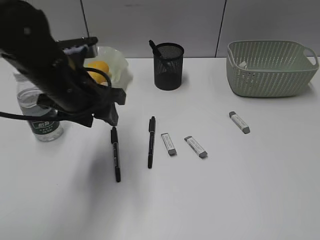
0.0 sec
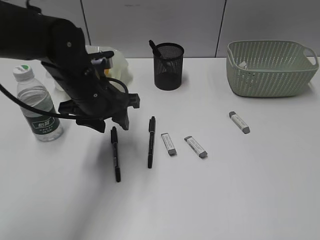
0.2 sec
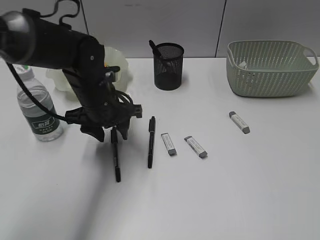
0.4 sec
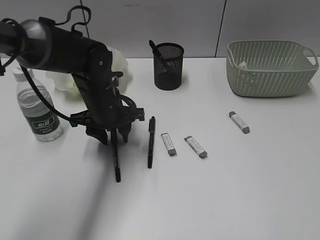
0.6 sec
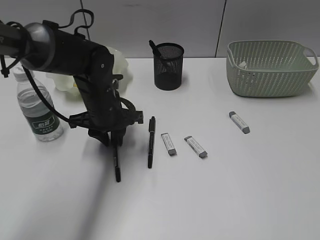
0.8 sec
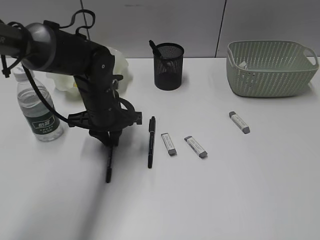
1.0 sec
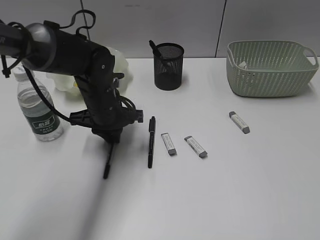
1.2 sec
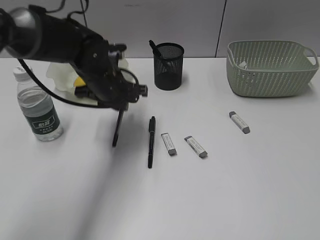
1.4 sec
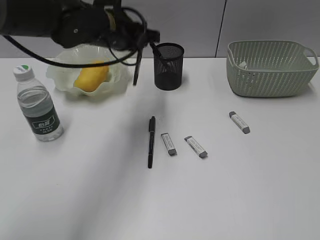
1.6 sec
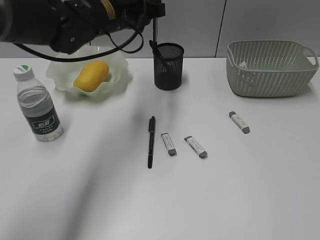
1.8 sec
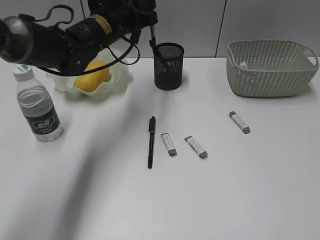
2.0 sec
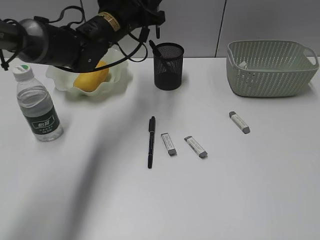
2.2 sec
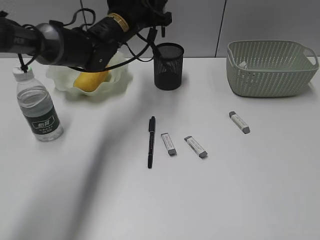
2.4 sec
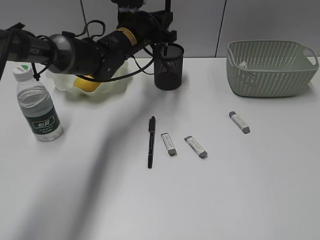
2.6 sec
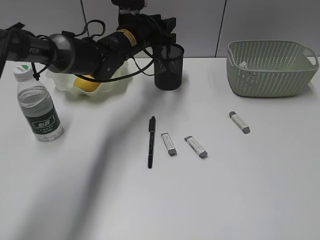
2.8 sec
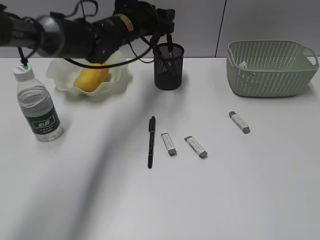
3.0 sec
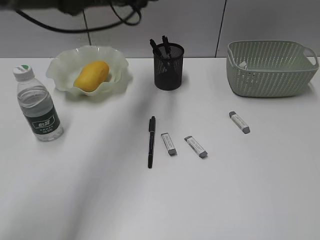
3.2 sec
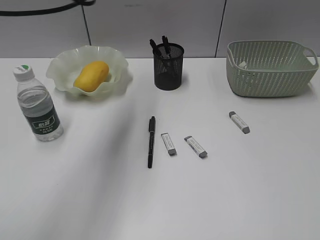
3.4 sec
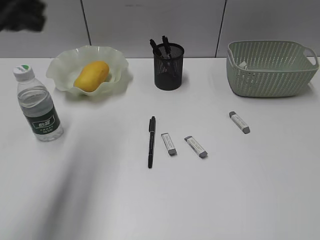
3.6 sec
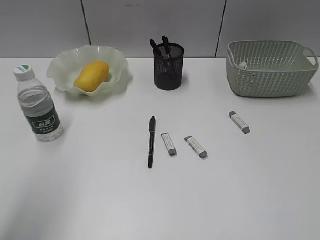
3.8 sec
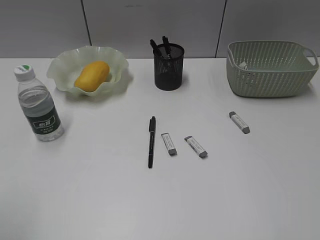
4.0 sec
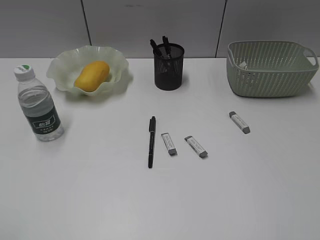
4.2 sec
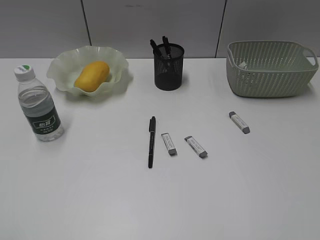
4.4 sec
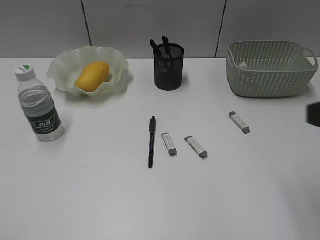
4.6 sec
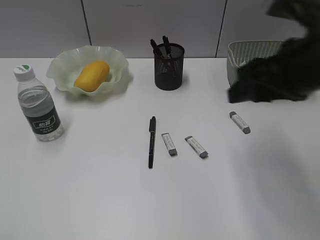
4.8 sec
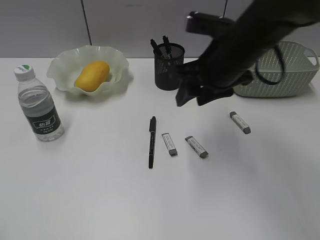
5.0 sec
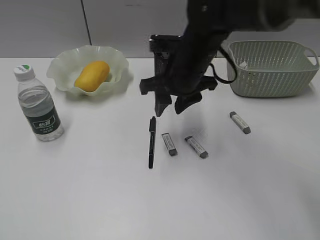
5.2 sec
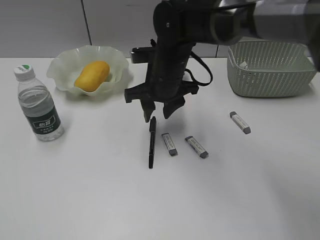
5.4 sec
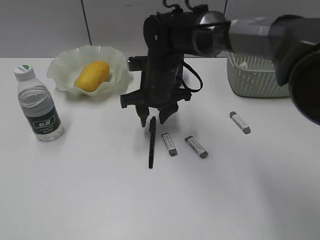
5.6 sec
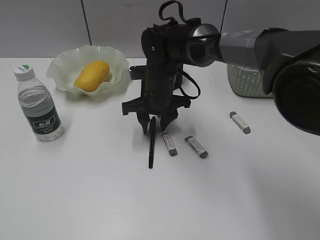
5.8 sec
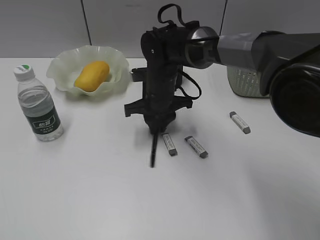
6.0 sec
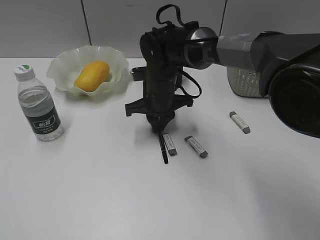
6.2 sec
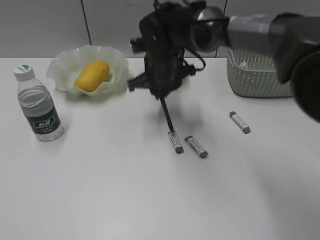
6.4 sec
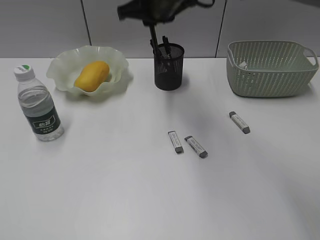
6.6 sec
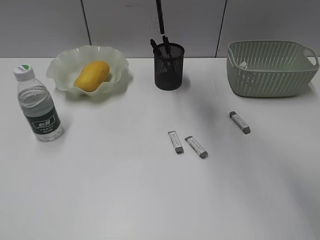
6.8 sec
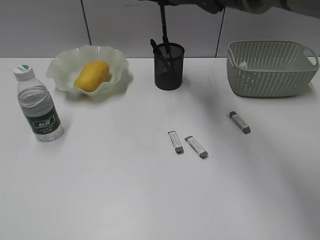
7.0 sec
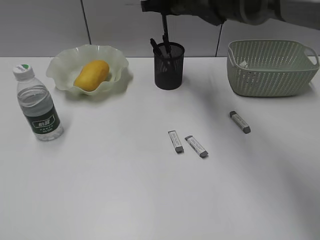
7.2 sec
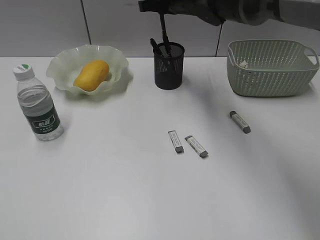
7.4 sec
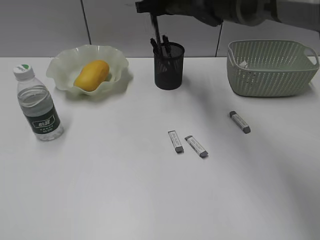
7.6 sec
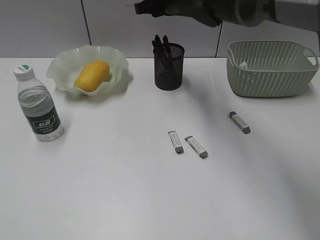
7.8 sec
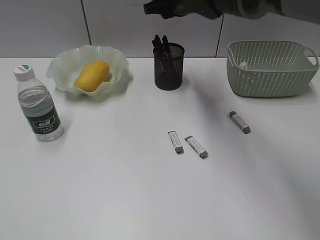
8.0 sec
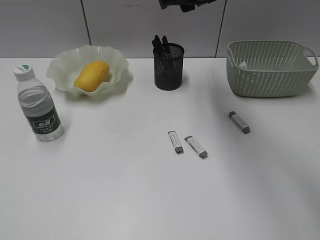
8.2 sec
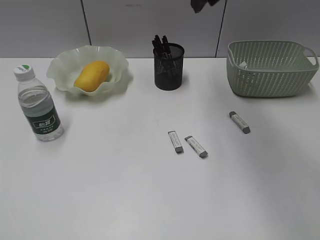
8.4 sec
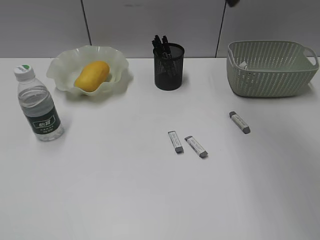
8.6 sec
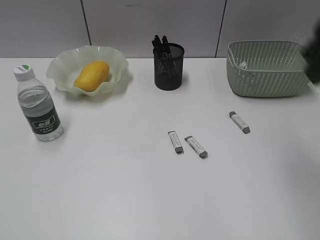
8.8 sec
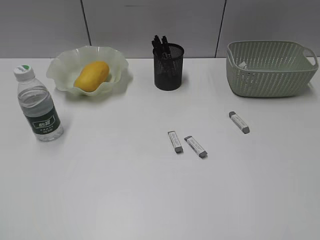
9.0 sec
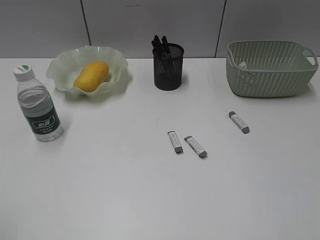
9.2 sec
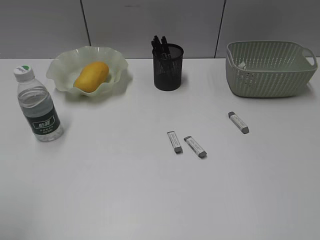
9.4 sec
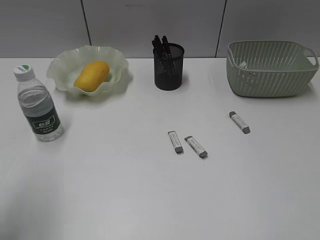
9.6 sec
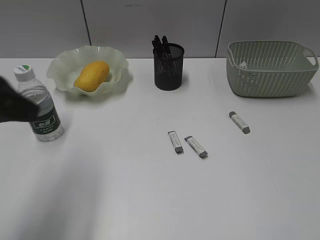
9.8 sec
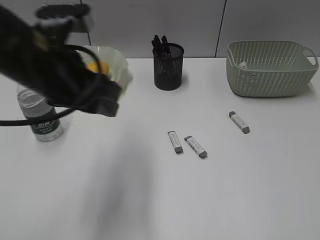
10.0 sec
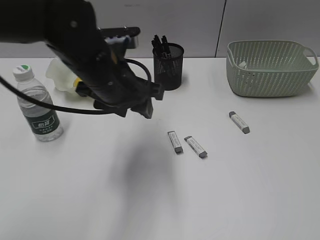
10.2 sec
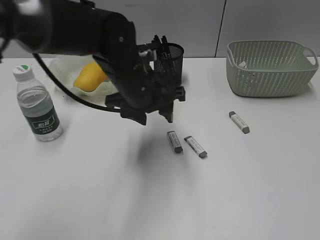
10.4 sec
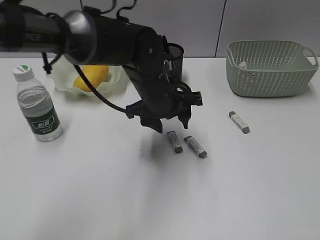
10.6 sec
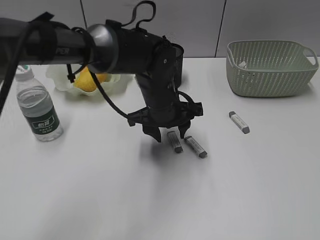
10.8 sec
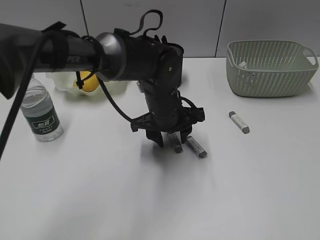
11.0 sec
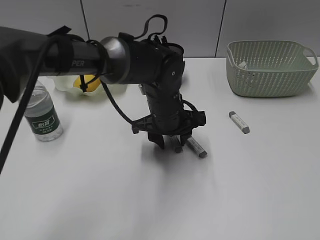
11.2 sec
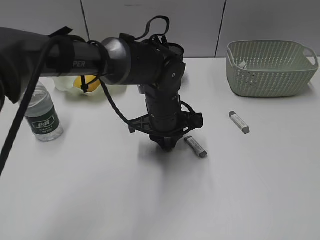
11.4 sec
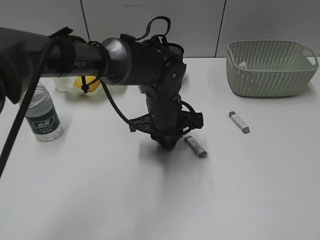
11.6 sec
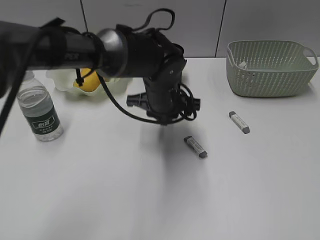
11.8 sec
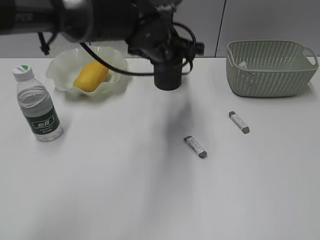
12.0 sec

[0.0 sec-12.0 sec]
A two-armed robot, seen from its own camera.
Step, 1.4 sec to 3.0 sec: Place the black pen in pen holder with left gripper.
Step, 3.2 sec to 6.2 sec: Grasp the black pen with right gripper.
Step, 8.0 sec to 11.6 sec: Grasp the eraser with left gripper.
0.0 sec to 1.6 sec: The left gripper shifts about 10 cm forward and to the right, reaches some 10 cm downward, then returns, and closes.
1.6 sec to 3.0 sec: The left gripper is displaced forward by approximately 10 cm, and opens up.
3.0 sec to 4.4 sec: The left gripper travels backward and to the left by about 50 cm.
4.4 sec to 6.0 sec: The right gripper moves forward, to the left and downward, about 50 cm.
6.0 sec to 7.6 sec: The right gripper shifts some 15 cm upward and forward.
7.6 sec to 9.0 sec: The right gripper moves backward and to the right, roughly 40 cm.
9.0 sec to 10.4 sec: The right gripper is displaced backward and to the right by some 10 cm. Meanwhile the left gripper travels forward and to the right by approximately 40 cm.
10.4 sec to 12.0 sec: The left gripper is displaced forward by about 5 cm, reaches about 5 cm downward, then returns, and closes up.

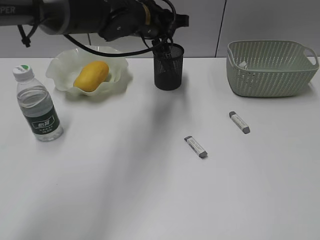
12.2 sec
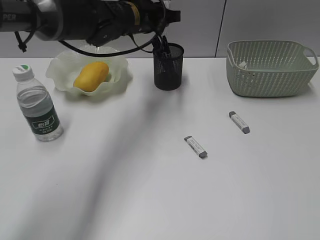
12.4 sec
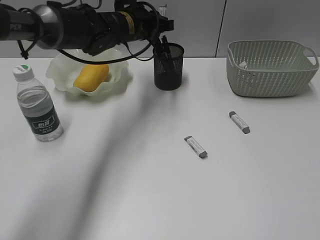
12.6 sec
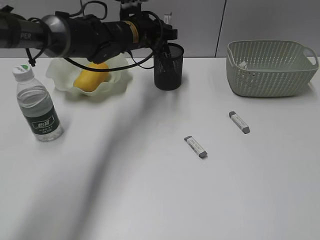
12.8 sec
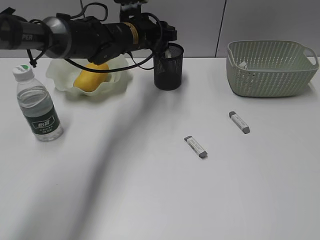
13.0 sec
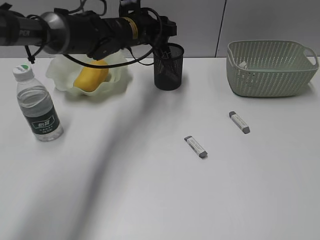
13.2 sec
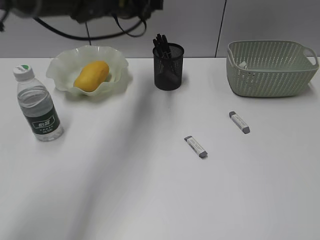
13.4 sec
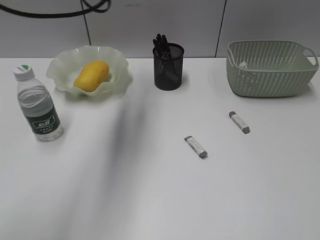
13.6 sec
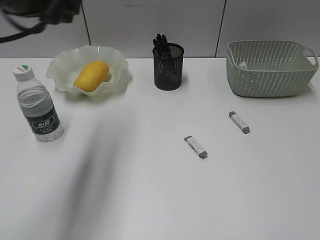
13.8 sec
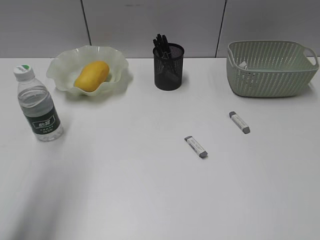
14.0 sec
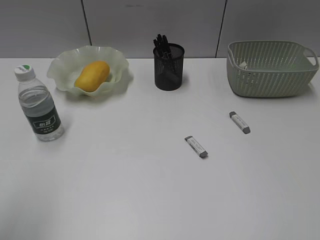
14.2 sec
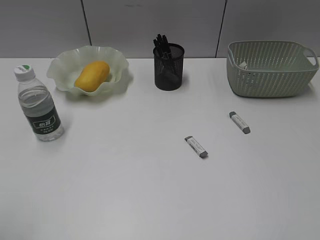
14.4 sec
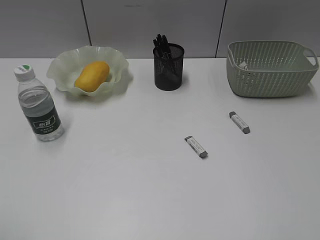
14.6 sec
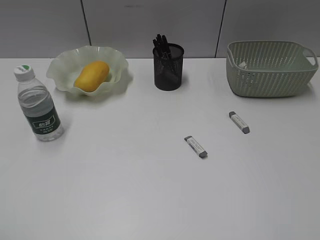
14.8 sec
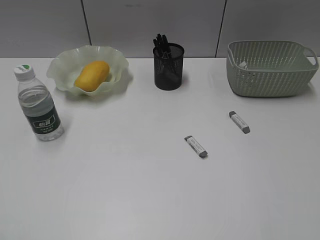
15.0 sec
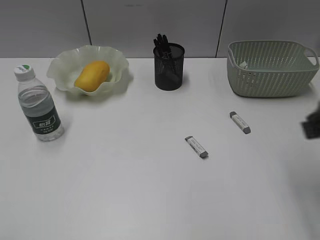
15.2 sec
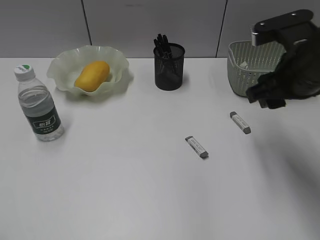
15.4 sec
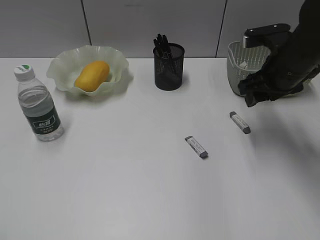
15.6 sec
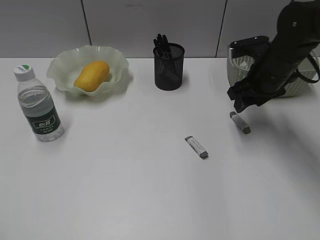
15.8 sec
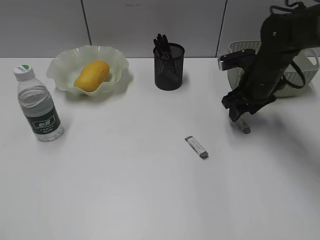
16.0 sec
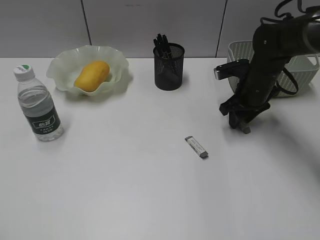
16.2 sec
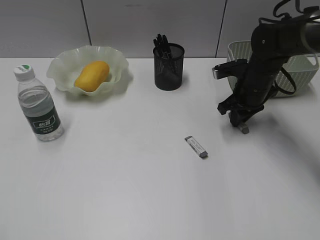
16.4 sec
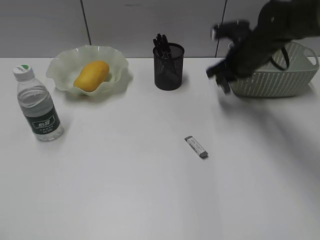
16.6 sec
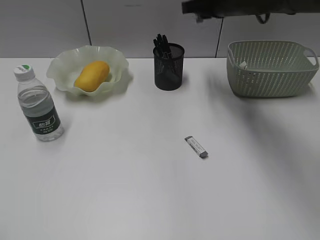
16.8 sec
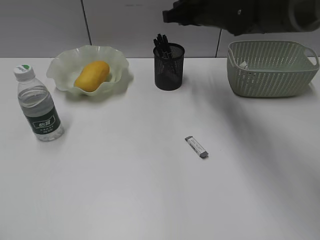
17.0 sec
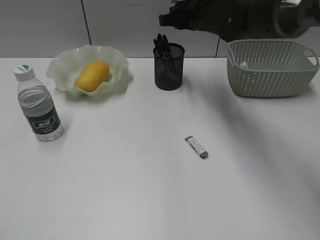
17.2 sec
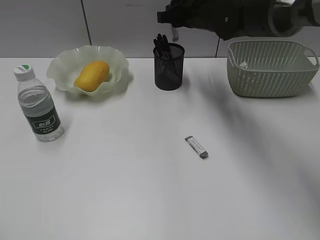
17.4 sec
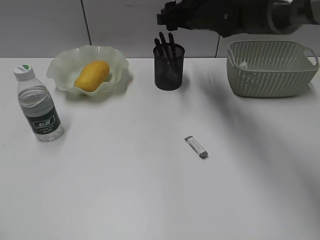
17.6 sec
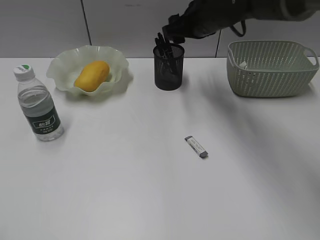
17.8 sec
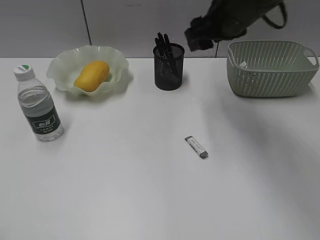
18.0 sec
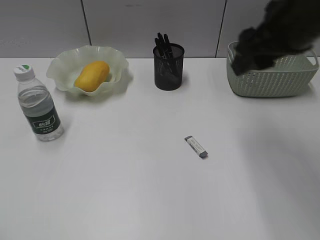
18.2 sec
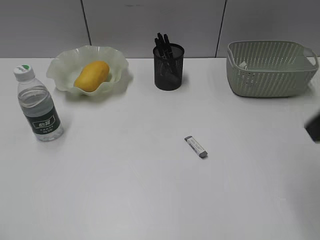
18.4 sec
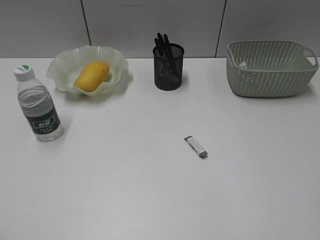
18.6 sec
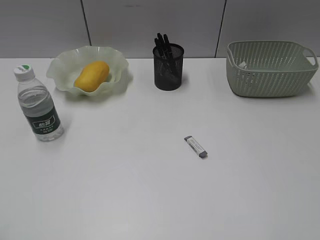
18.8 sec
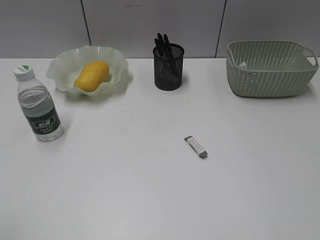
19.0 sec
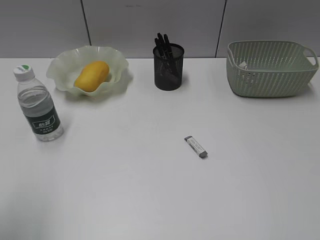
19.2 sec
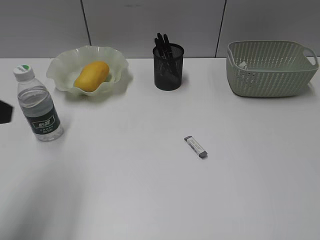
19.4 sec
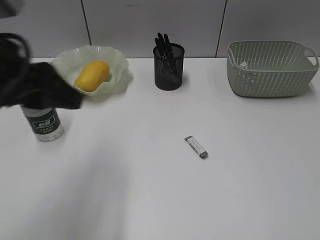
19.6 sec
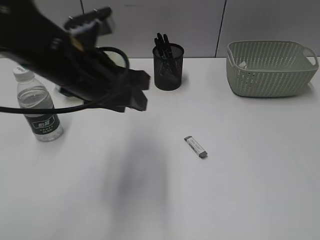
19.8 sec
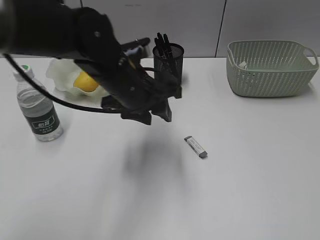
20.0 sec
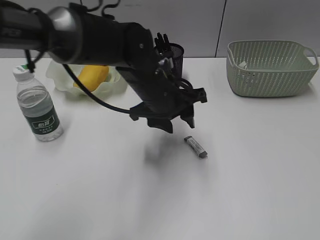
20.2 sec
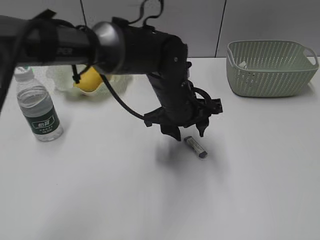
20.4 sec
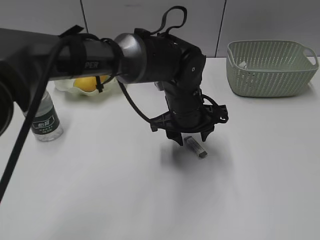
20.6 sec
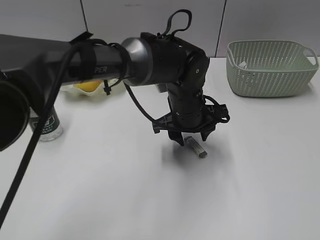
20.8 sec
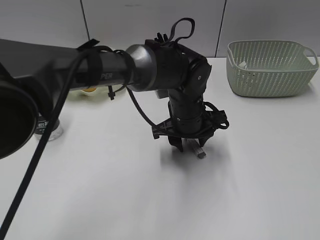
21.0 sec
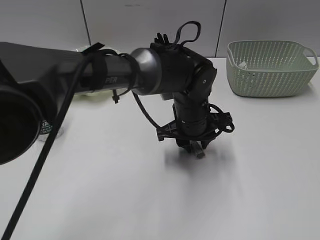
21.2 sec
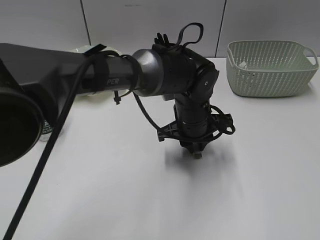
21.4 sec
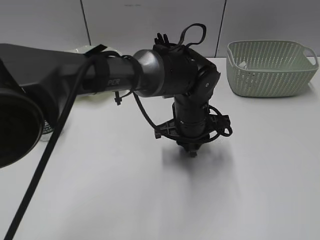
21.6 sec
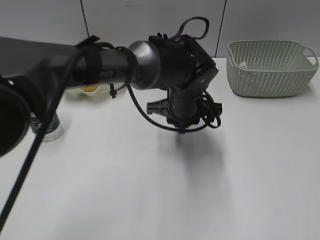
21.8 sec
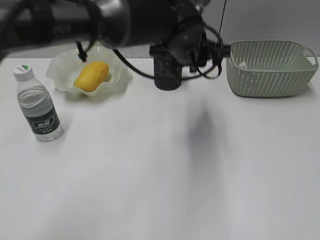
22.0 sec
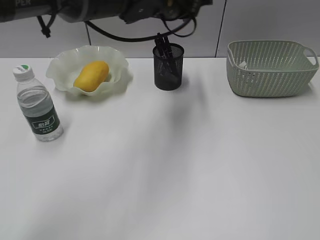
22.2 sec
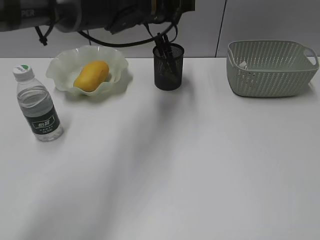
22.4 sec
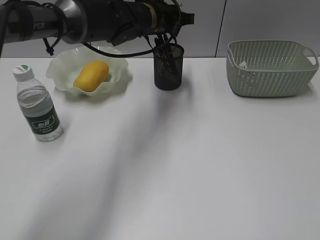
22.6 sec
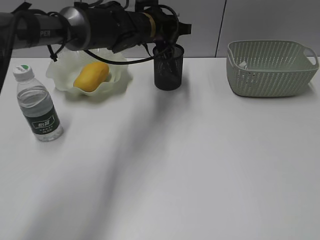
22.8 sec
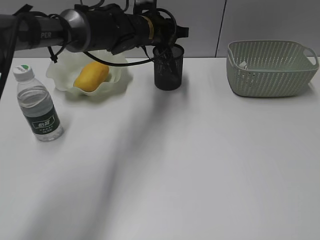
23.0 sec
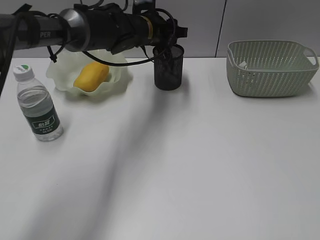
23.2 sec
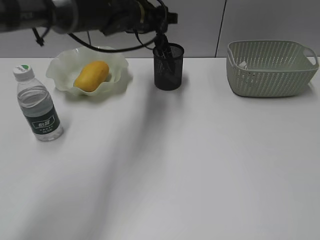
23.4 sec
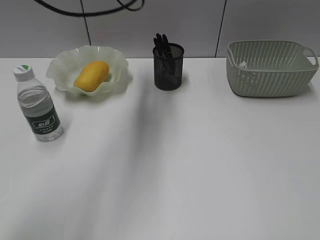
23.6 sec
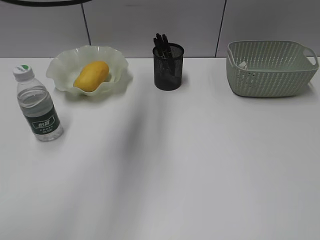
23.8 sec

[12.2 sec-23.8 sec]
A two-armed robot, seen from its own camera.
Step, 12.2 sec to 13.0 sec: Place the eraser in pen holder with left gripper.
Step, 13.2 sec to 16.4 sec: Grasp the eraser with right gripper.
Step, 17.8 sec to 21.4 sec: Grasp the eraser with left gripper.
Step, 21.6 sec to 23.4 sec: Place the eraser in pen holder with left gripper.
12.2 sec to 13.6 sec: The left gripper goes approximately 15 cm to the left and upward, and opens up.
13.6 sec to 15.0 sec: The left gripper is displaced backward and to the left by some 50 cm, while the right gripper goes approximately 5 cm forward.
15.0 sec to 16.6 sec: The right gripper goes approximately 40 cm forward and downward.
16.6 sec to 18.0 sec: The right gripper goes about 10 cm upward and to the left, and opens up.
18.0 sec to 19.4 sec: The left gripper heads forward, covering roughly 15 cm, while the right gripper heads backward and to the right, covering some 40 cm.
19.4 sec to 21.0 sec: The left gripper goes approximately 40 cm to the right, downward and forward.
21.0 sec to 22.4 sec: The left gripper goes approximately 20 cm upward, forward and to the left, and closes up.
22.4 sec to 23.8 sec: The left gripper travels upward, to the left and backward by approximately 15 cm, and opens.
